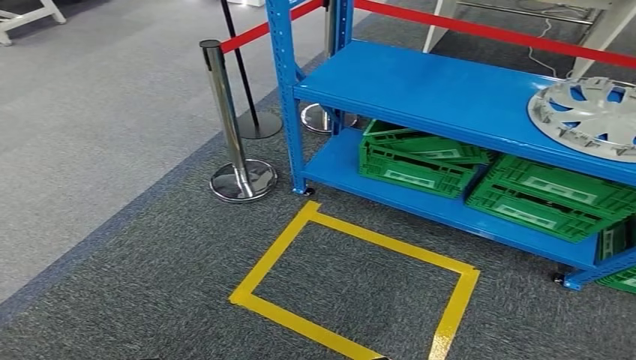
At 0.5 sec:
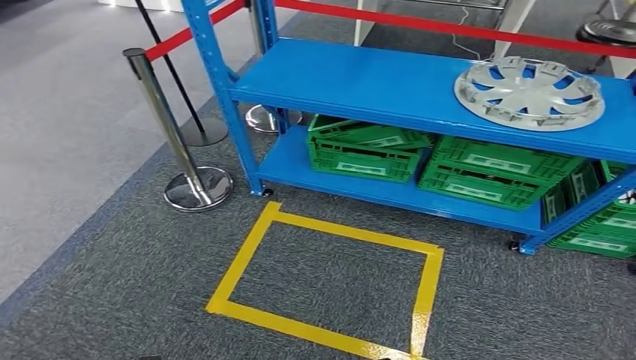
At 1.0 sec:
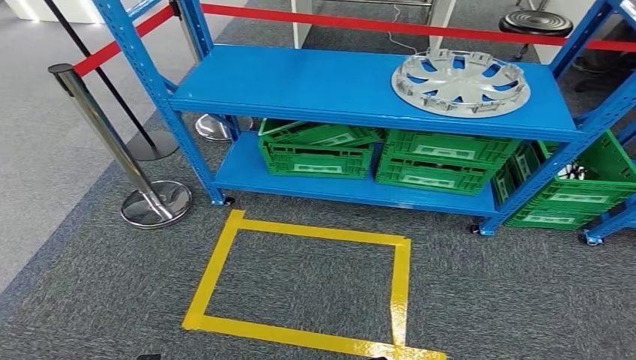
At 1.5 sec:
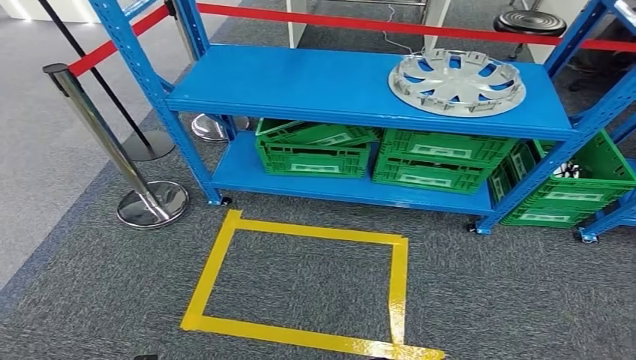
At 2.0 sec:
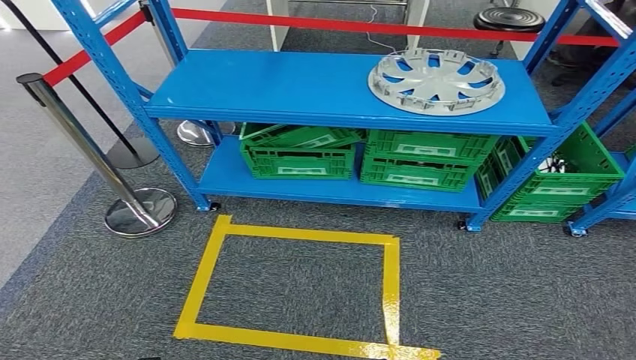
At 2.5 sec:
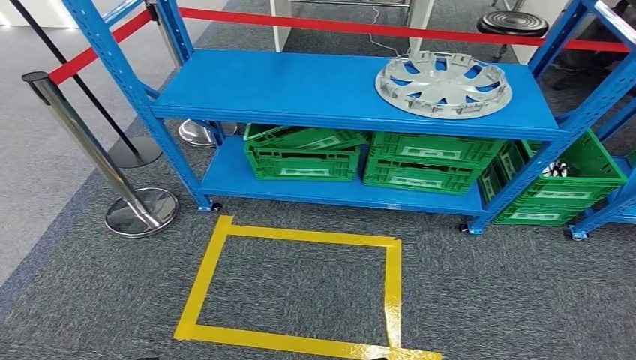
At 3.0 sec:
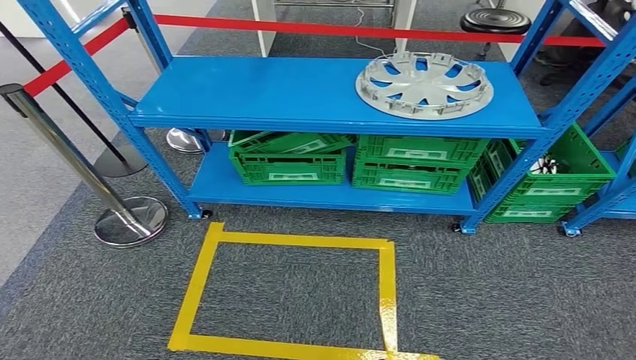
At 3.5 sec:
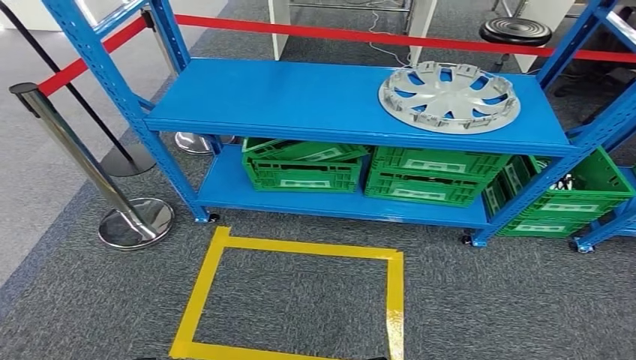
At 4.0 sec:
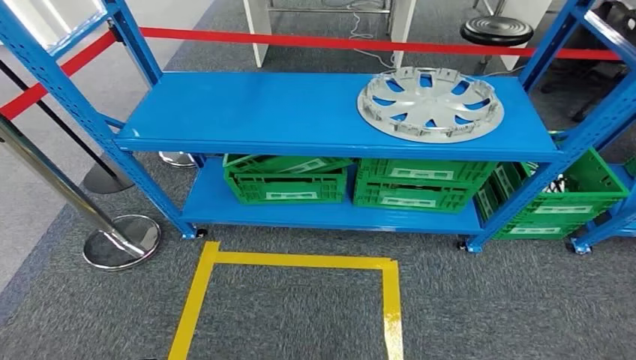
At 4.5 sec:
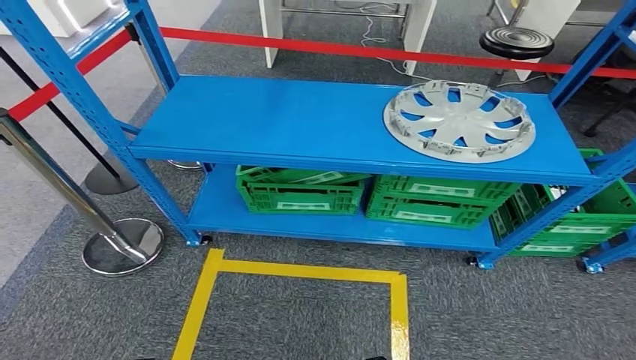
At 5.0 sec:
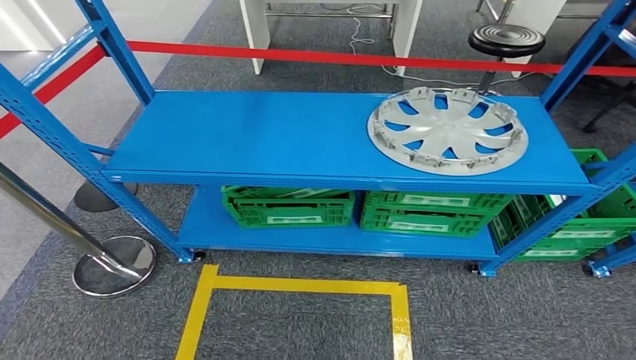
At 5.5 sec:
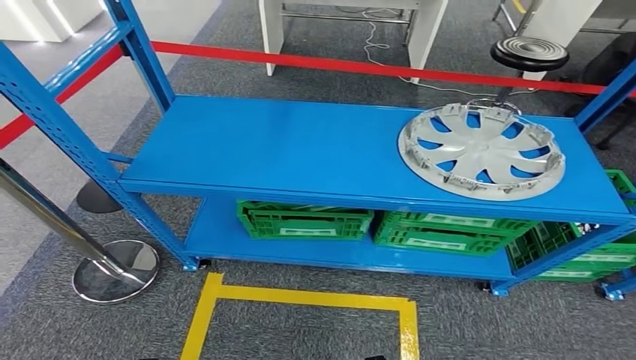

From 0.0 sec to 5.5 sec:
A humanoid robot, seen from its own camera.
Step, from 0.0 sec to 5.5 sec: Return to the initial position at the workbench.
